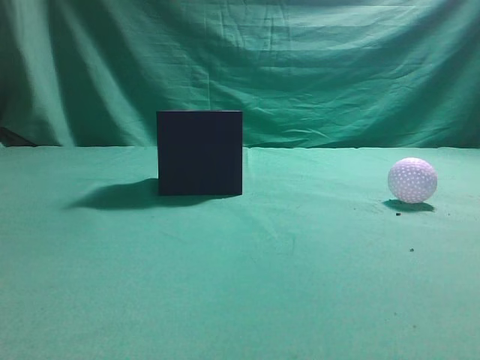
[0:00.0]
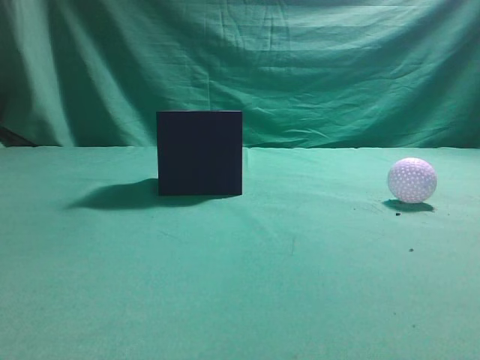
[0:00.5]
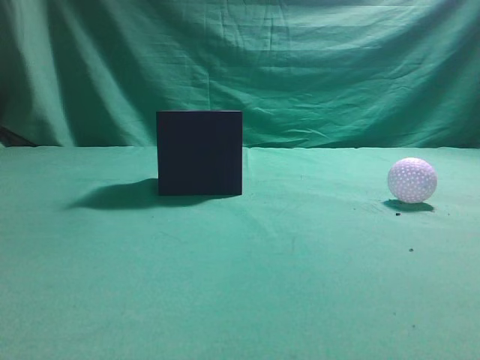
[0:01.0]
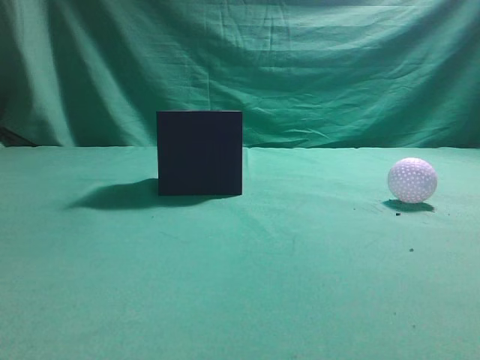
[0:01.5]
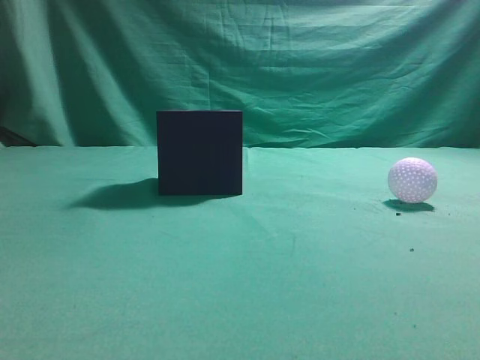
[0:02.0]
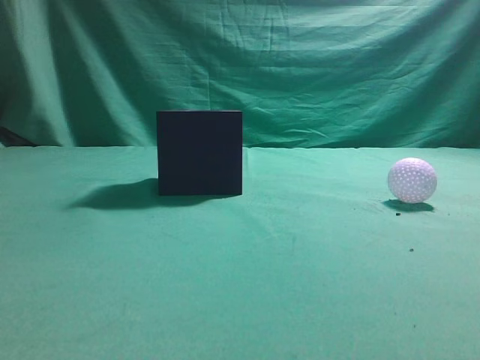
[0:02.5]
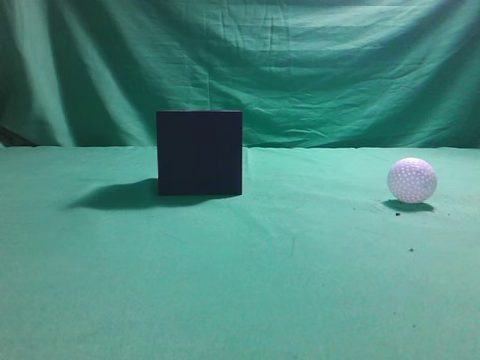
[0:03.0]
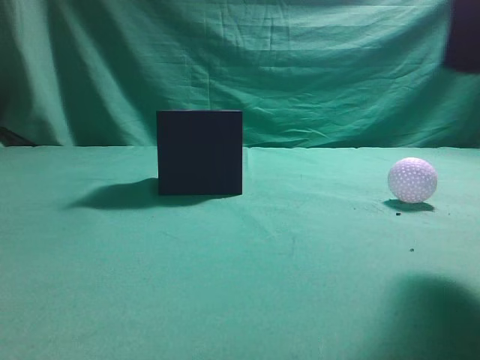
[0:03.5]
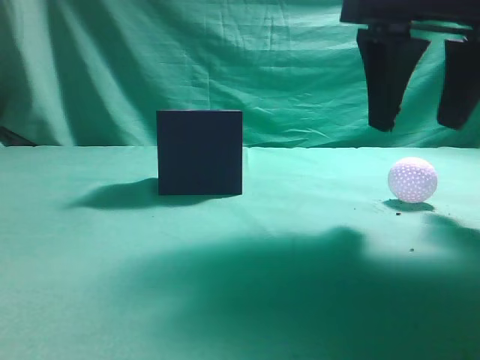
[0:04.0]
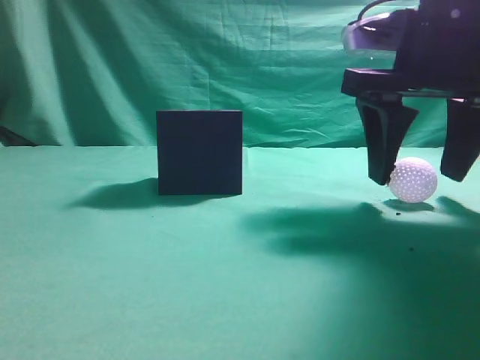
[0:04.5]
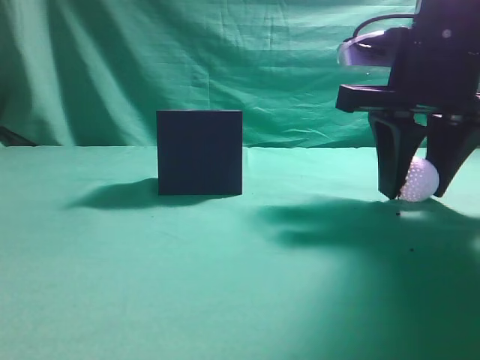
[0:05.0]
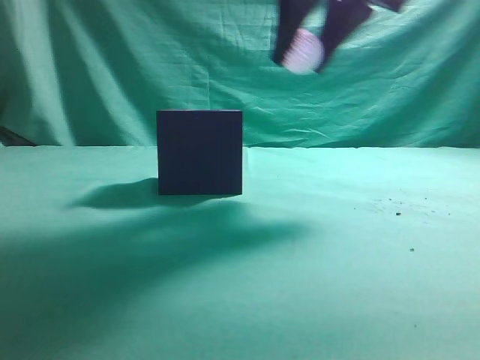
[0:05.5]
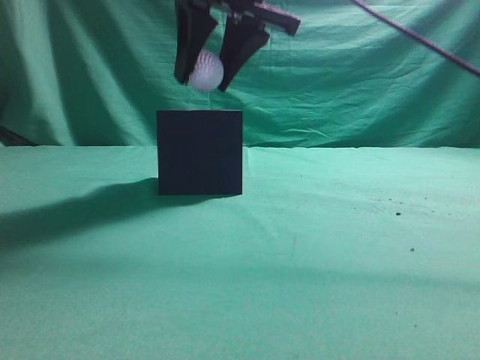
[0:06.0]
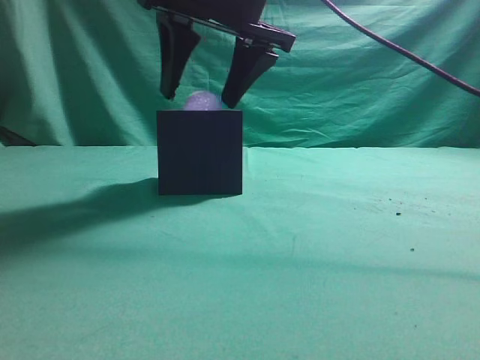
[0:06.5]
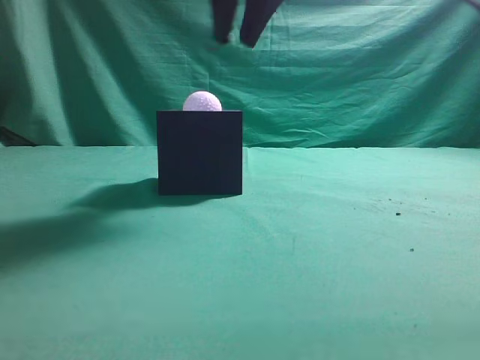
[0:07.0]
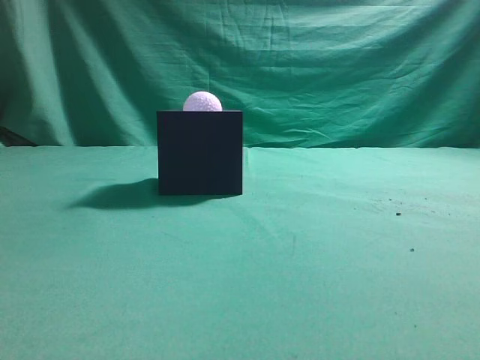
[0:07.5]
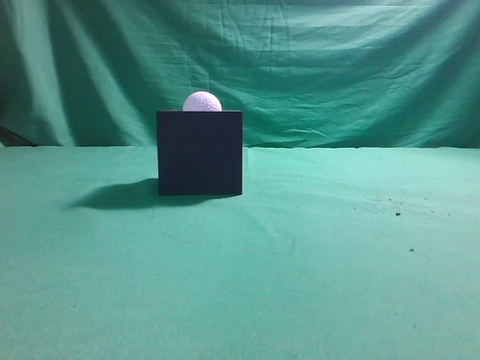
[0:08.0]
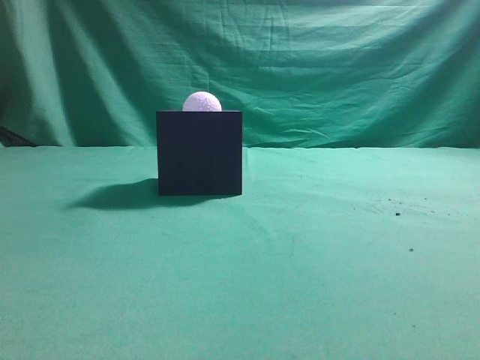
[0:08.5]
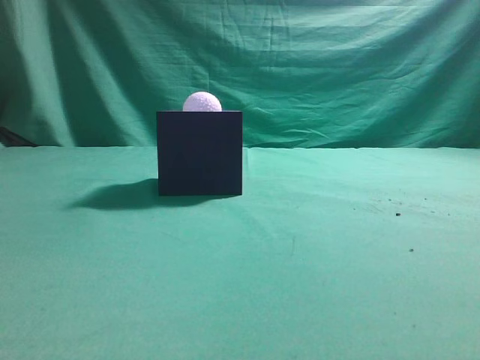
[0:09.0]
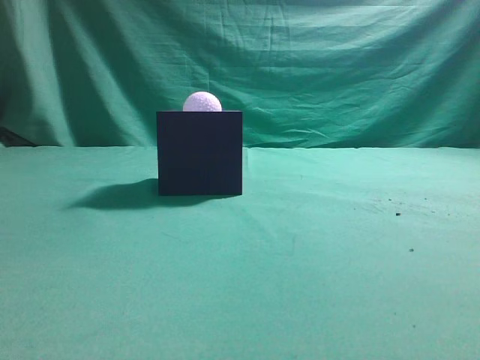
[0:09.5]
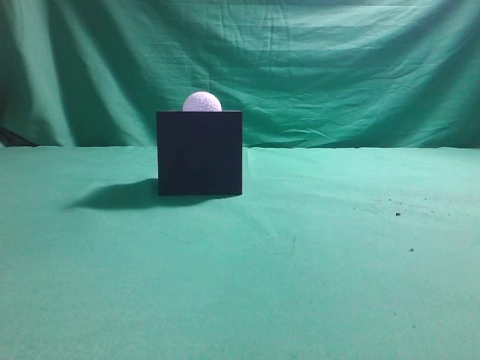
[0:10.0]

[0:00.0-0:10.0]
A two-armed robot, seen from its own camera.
Task of the whole recording: Pick up the ball and place it in the circular groove above the cube.
Step, 0:00.0 to 0:04.0: Grasp the sphere on the table.
Step, 0:04.5 to 0:05.5: Place the sphere into the sphere-shaped recess.
0:02.0 to 0:04.0: The right gripper goes approximately 25 cm forward and to the left, and opens.
0:04.0 to 0:06.0: The right gripper is displaced to the left and forward by approximately 15 cm, and closes up.
0:06.0 to 0:08.0: The right gripper heads backward, to the right and upward, covering approximately 30 cm, and closes its fingers.

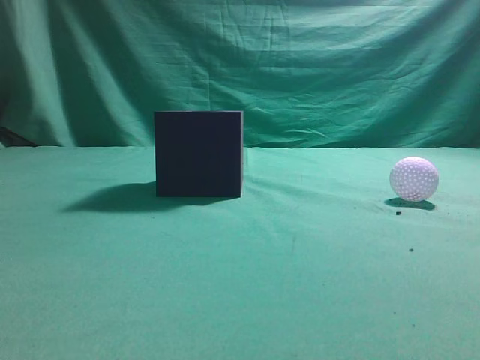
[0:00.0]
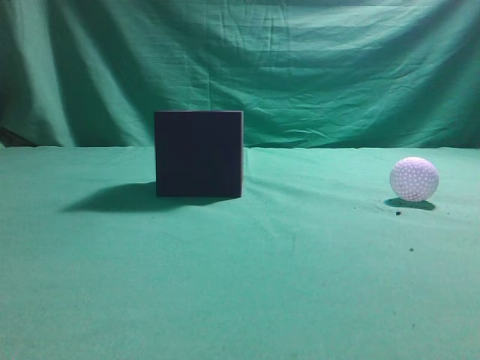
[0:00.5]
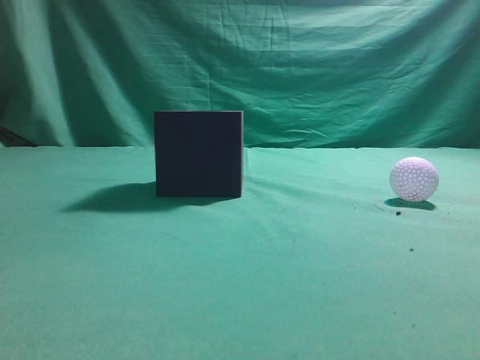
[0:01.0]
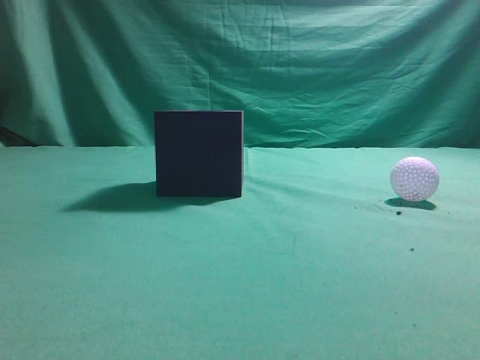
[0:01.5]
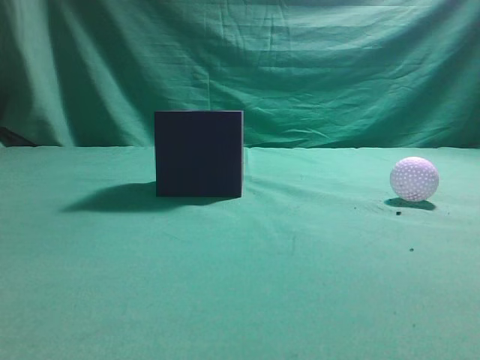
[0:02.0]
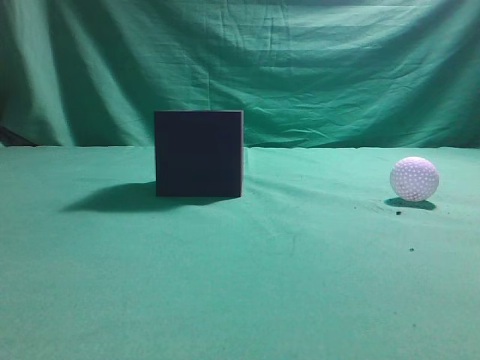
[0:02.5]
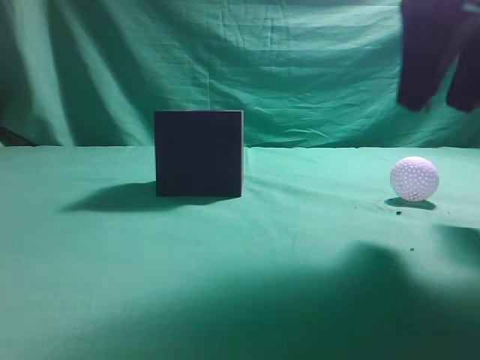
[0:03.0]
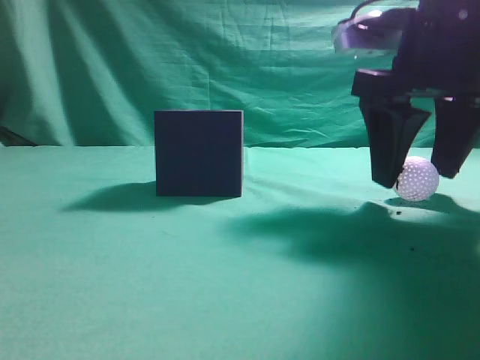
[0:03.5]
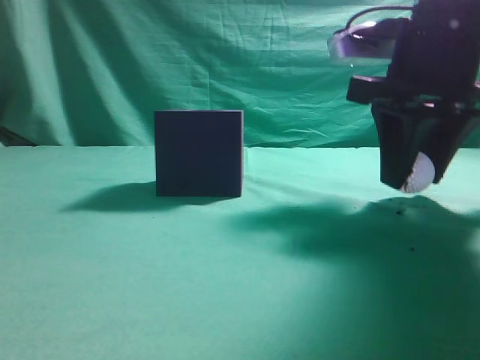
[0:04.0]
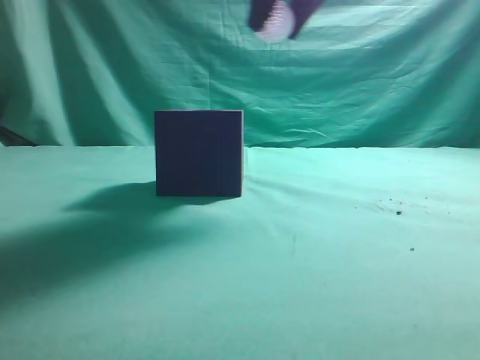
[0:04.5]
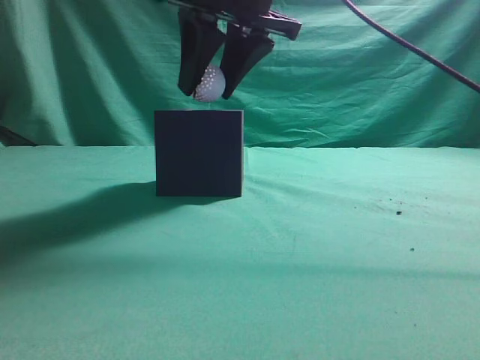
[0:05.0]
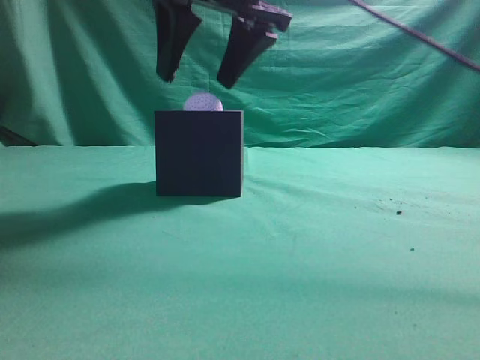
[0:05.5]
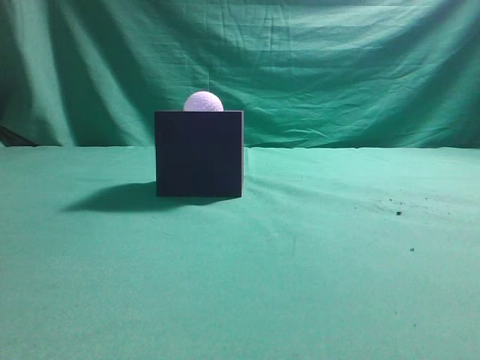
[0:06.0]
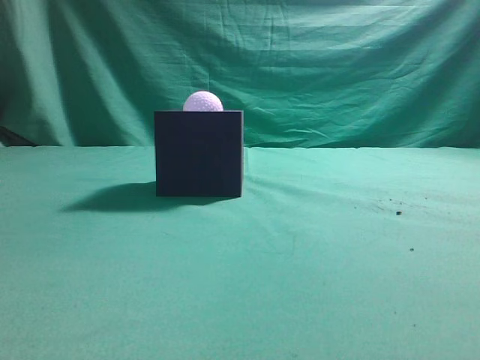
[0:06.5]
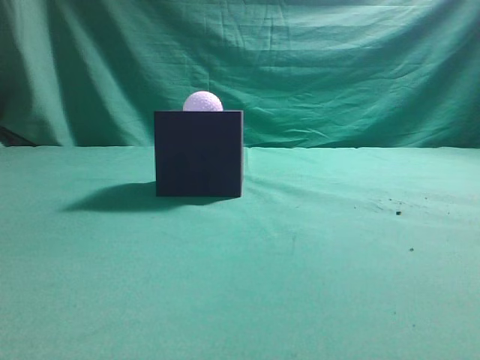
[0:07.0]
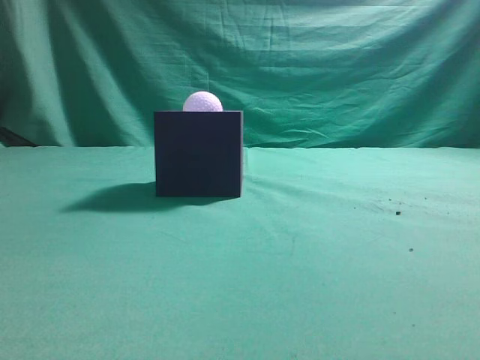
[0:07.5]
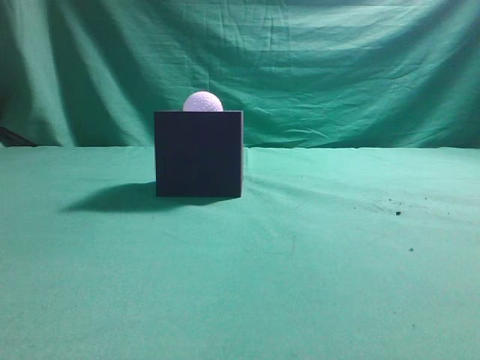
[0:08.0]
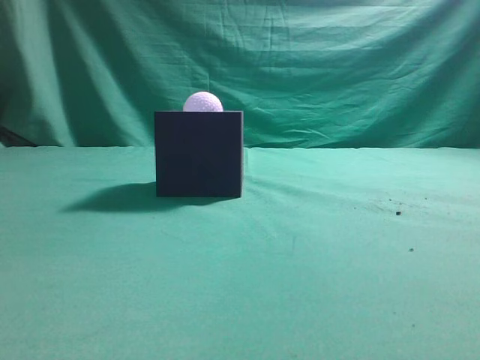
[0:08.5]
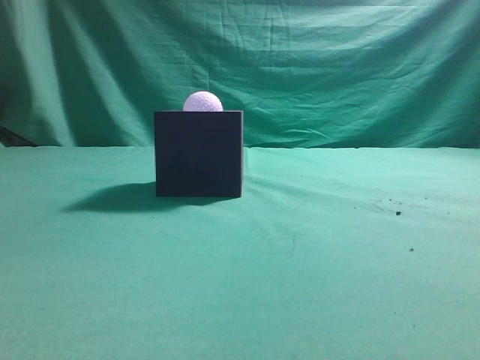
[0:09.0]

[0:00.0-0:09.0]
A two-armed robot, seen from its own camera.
Task of the whole recording: Pick up the ball and place it in the circular groove above the cube.
Step, 0:00.0 to 0:04.0: Grasp the sphere on the table.
Step, 0:04.5 to 0:05.5: Place the sphere into the sphere-shaped recess.
0:02.0 to 0:04.5: The right gripper travels forward and to the left by about 30 cm, and opens.
0:04.5 to 0:07.0: The right gripper is displaced backward and to the right by roughly 25 cm, and closes up.
